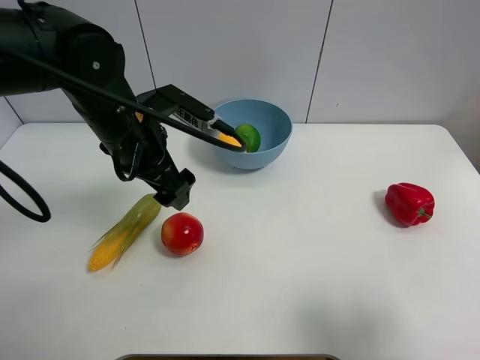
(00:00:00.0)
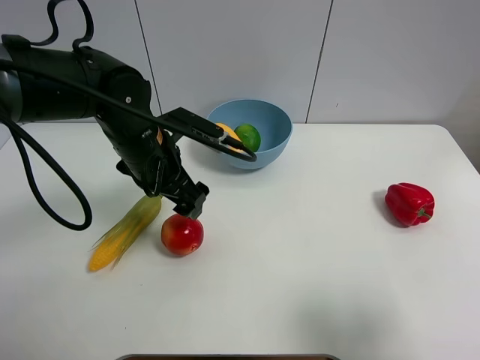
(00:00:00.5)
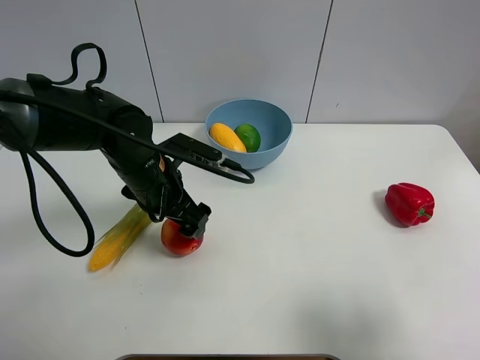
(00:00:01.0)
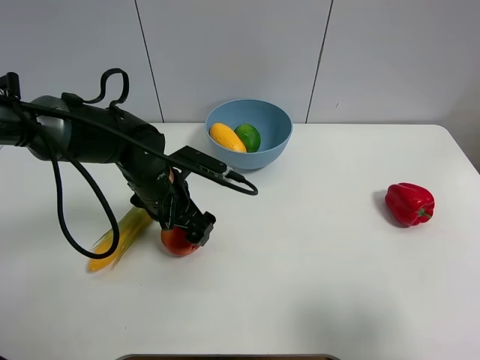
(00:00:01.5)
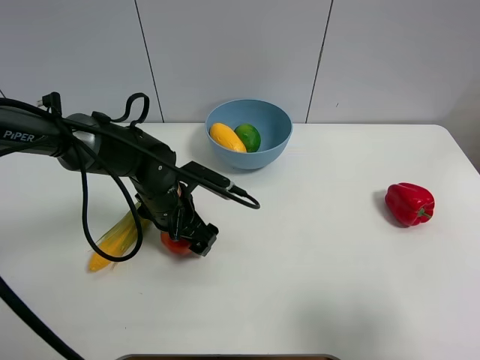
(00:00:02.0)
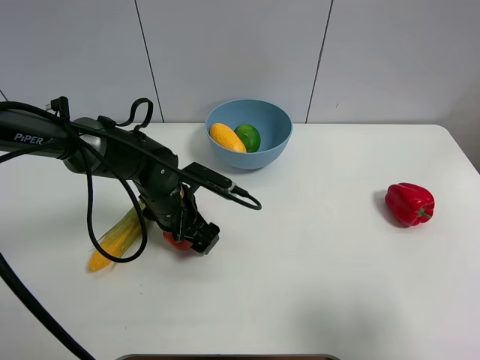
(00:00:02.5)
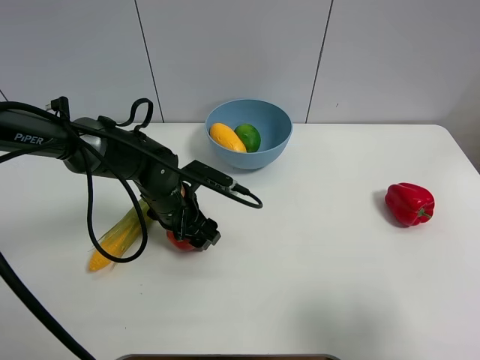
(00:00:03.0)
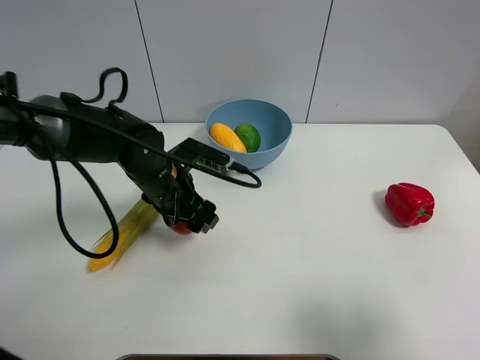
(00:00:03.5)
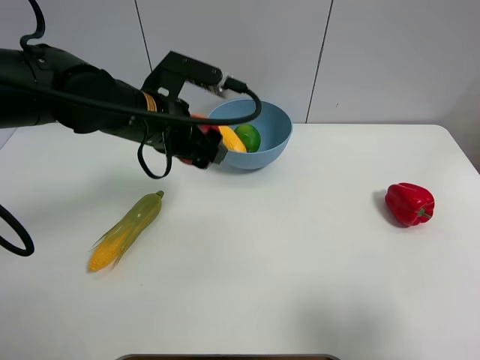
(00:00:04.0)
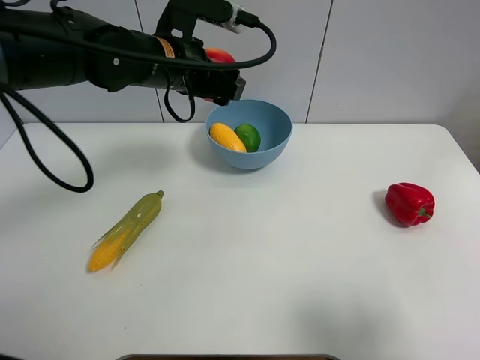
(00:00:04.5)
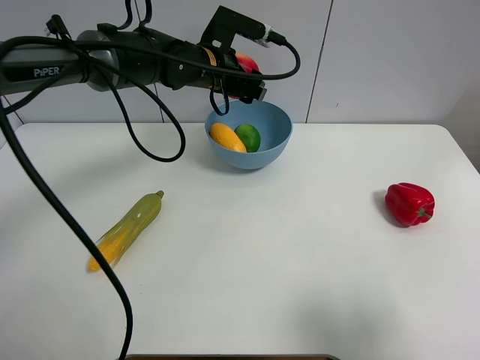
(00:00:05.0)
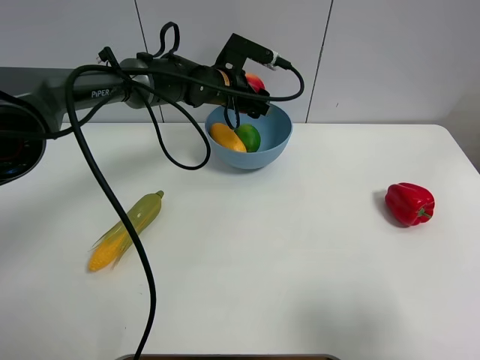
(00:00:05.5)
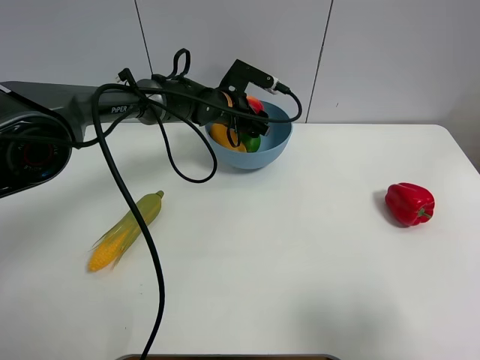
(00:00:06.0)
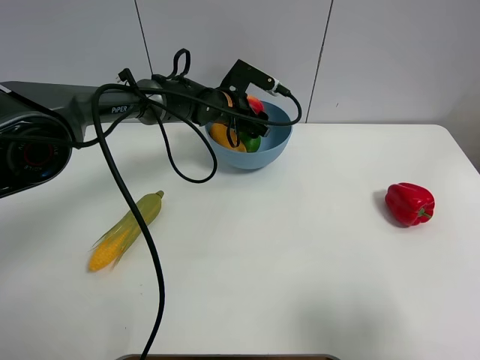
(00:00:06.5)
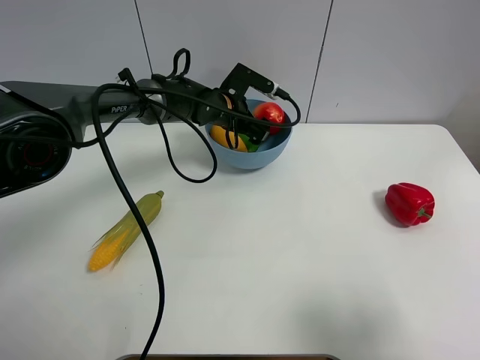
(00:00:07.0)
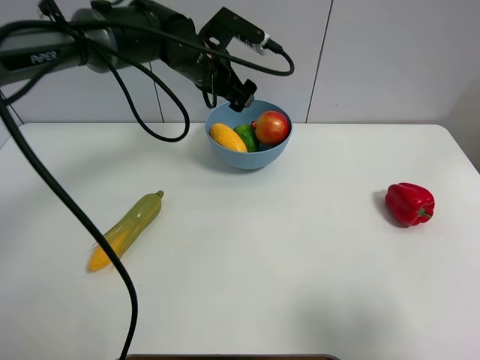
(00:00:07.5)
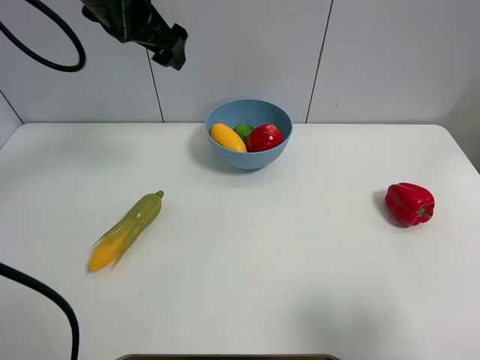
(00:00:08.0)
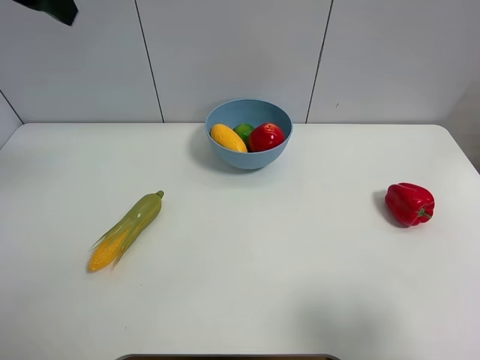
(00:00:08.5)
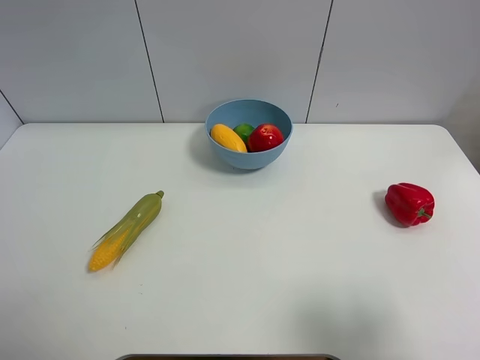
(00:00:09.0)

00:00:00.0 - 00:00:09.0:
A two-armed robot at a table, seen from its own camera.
Task of the whole recording: Put the three fruits on the table into a bowl.
Step, 00:00:00.0 - 00:00:02.5: Grasp the pomegranate with left gripper.
Step, 00:00:03.0 - 00:00:06.5: Place the pomegranate in the blue bowl with left gripper.
00:00:00.0 - 00:00:02.0: The left gripper shifts roughly 15 cm downward.
00:00:02.0 - 00:00:04.5: The left gripper moves upward, roughly 20 cm, and closes.
00:00:04.5 - 00:00:07.0: The left gripper is displaced downward and forward by about 15 cm, and opens.
00:00:07.0 - 00:00:09.0: The left gripper shifts some 50 cm upward, backward and to the left.
